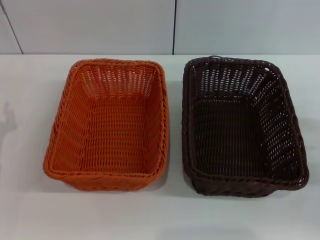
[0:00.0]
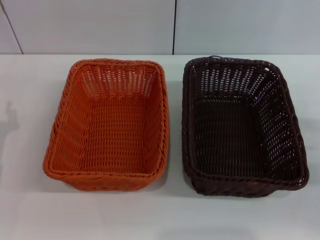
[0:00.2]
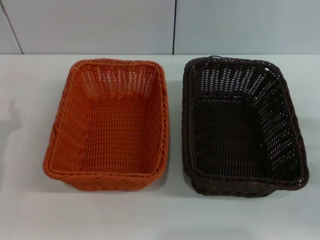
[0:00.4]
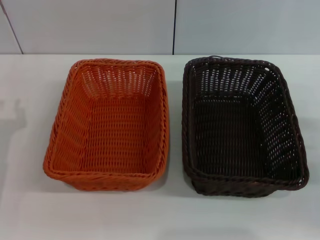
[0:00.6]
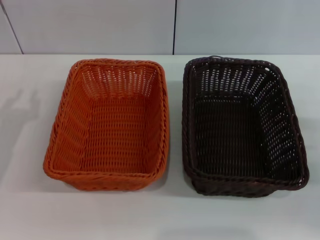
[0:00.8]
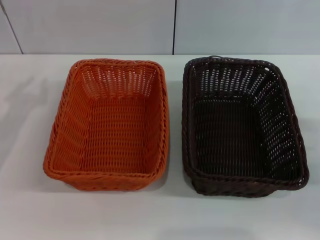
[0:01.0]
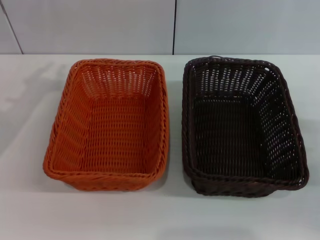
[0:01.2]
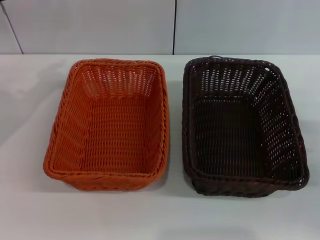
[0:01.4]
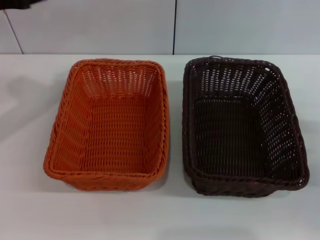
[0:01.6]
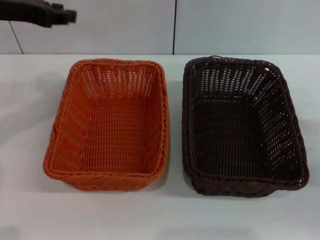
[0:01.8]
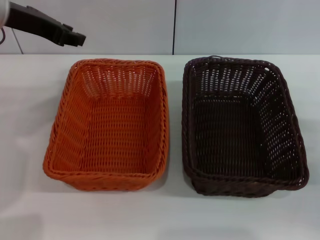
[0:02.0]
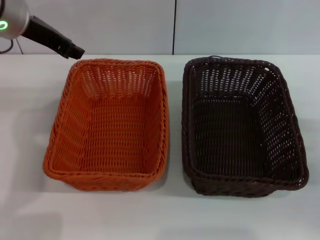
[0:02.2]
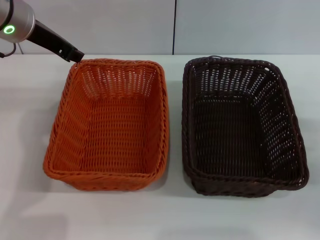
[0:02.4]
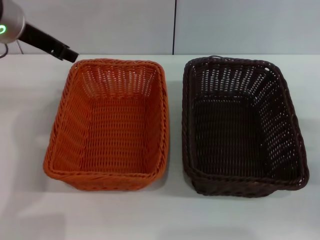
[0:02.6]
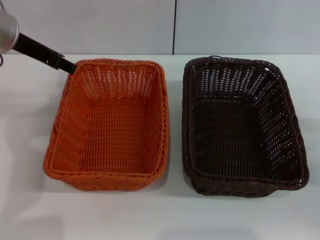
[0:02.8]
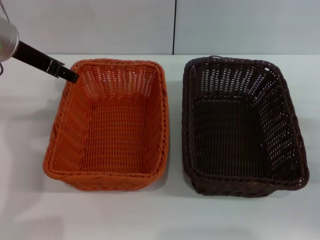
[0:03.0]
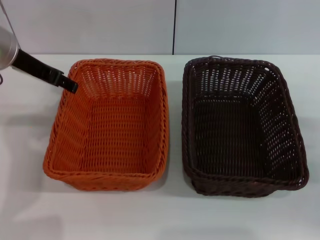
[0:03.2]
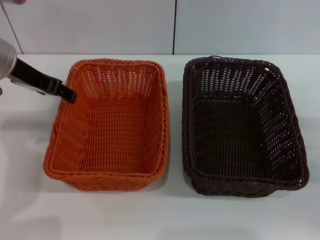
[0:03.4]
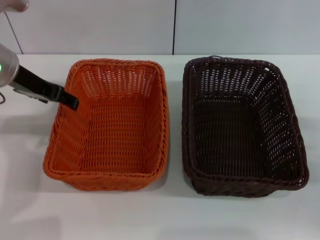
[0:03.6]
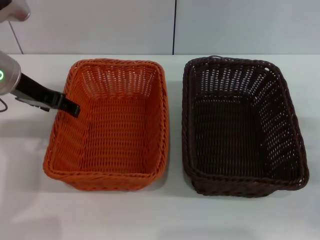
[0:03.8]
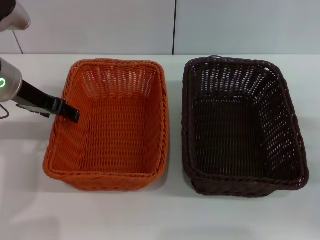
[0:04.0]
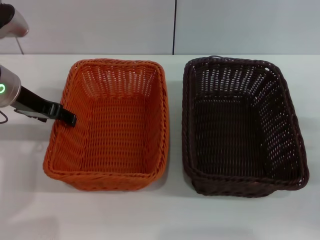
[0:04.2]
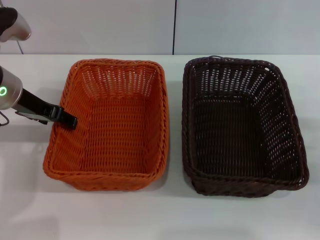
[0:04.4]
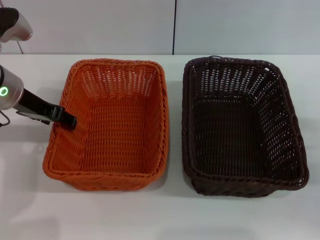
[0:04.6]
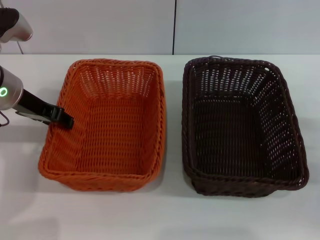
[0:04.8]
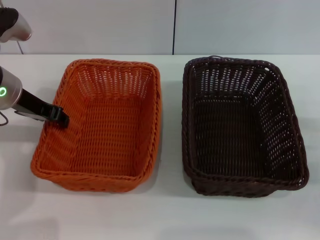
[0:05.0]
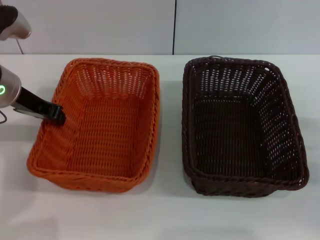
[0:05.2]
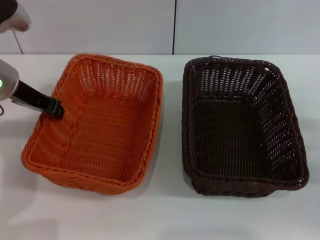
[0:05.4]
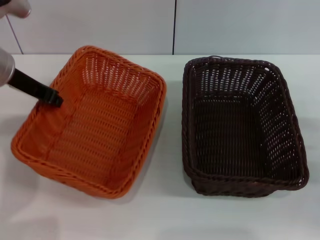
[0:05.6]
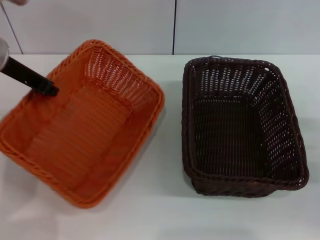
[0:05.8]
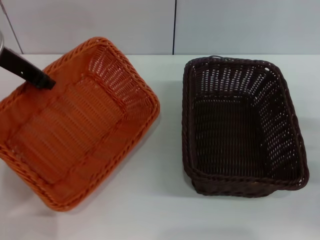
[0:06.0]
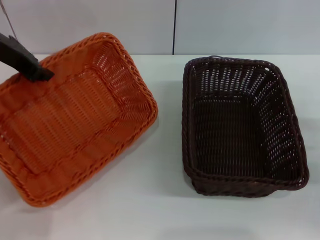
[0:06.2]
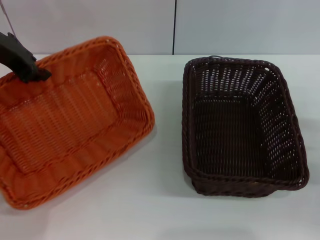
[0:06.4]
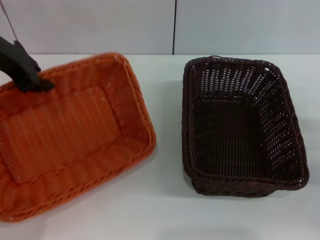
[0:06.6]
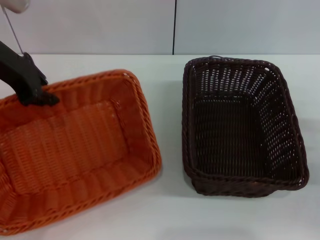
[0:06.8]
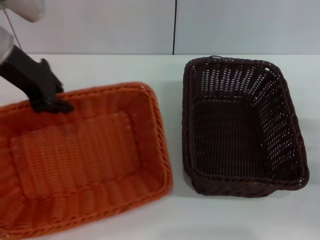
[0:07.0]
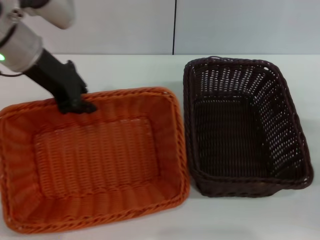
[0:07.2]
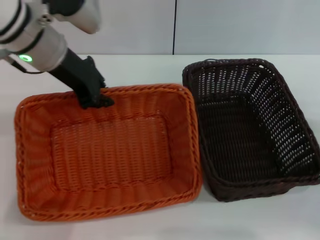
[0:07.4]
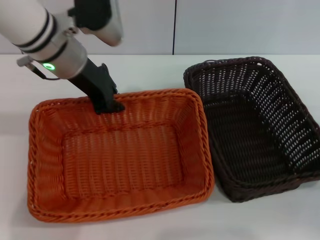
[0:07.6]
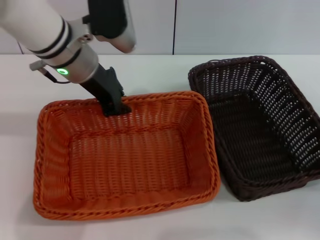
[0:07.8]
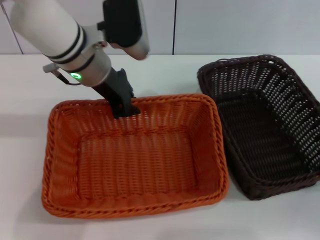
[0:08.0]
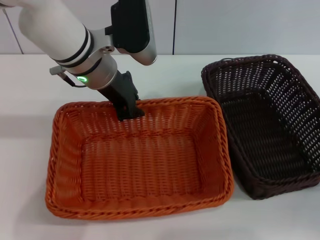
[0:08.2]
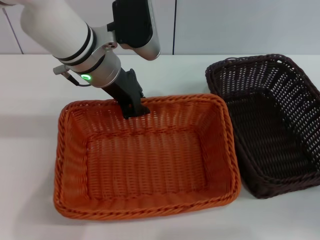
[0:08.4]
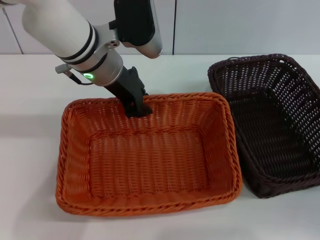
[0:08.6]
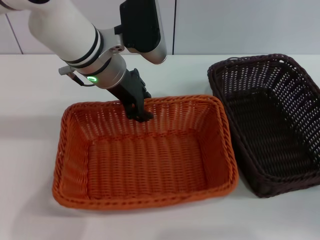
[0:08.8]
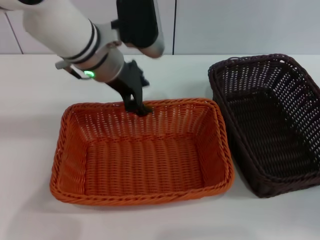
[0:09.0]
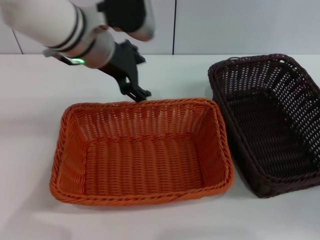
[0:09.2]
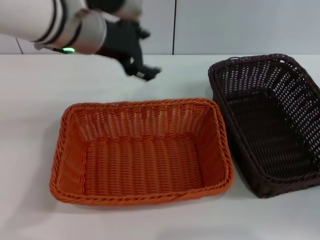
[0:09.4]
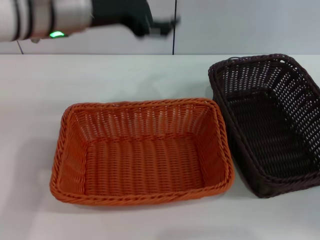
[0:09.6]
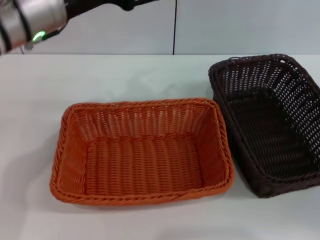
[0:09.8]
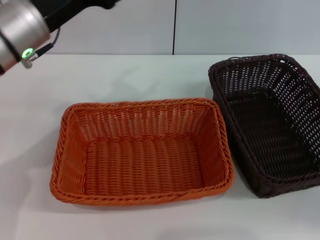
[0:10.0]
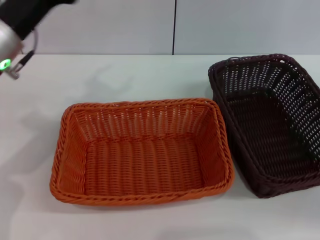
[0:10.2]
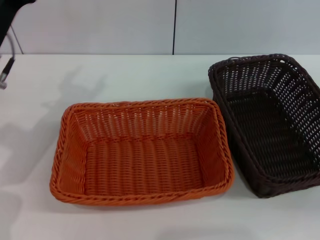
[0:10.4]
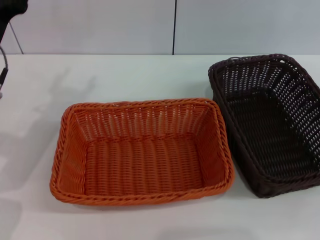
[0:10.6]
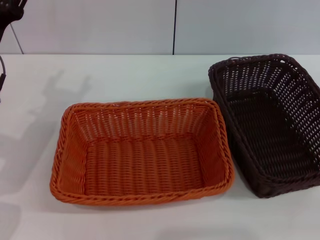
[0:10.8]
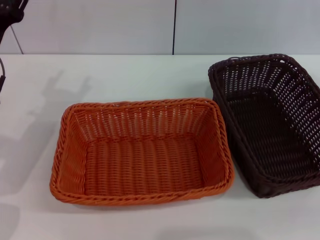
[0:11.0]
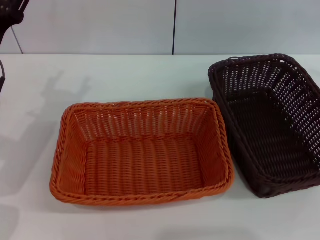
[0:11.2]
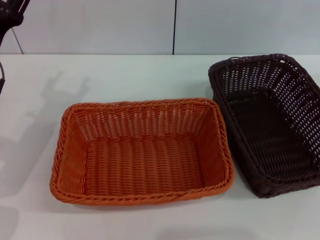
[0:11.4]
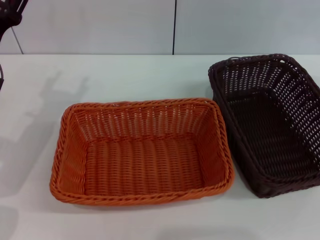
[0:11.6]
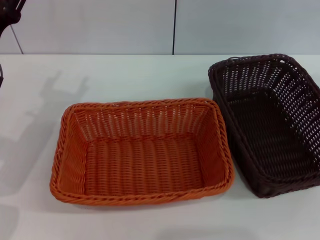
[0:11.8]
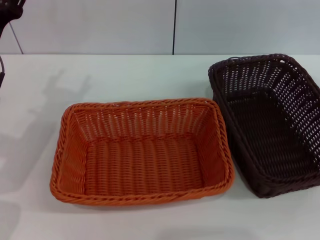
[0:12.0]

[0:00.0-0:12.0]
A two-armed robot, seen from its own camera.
Step, 0:00.0 to 0:06.2: Pick up the light basket with the left gripper.
Step, 0:06.6 to 0:08.8: Place the light basket in the center of view with the left gripper.
0:00.0 to 0:01.6: The left gripper goes some 20 cm upward and forward.
0:01.6 to 0:03.0: The left gripper is displaced to the right by approximately 5 cm.
0:03.0 to 0:04.4: The left gripper travels downward by approximately 5 cm.
0:04.4 to 0:06.0: The left gripper travels upward by roughly 10 cm, and closes.
0:06.0 to 0:07.6: The left gripper shifts about 10 cm to the right.
0:07.6 to 0:09.0: The left gripper is displaced to the right by about 5 cm.
0:09.0 to 0:10.4: The right gripper ends up approximately 5 cm from where it was; the left gripper travels to the left by about 15 cm, and opens its fingers.

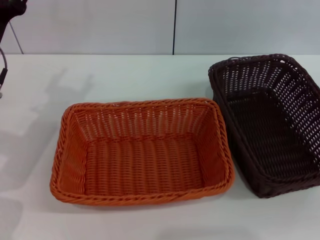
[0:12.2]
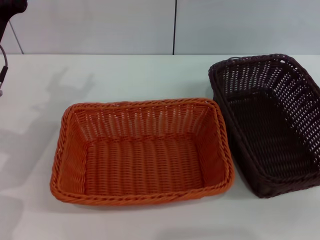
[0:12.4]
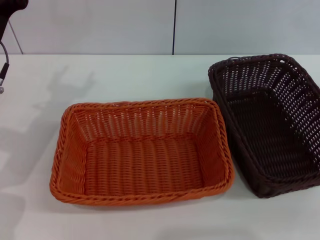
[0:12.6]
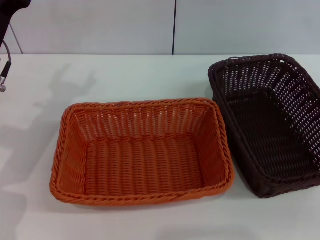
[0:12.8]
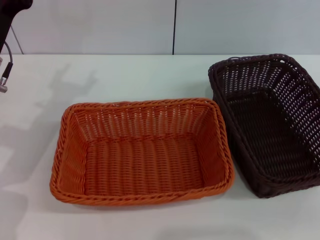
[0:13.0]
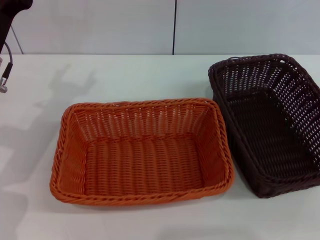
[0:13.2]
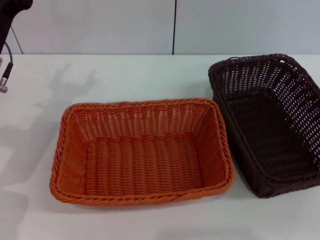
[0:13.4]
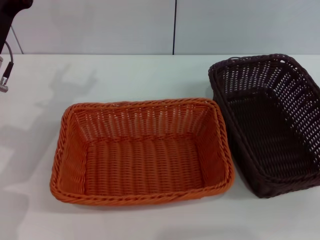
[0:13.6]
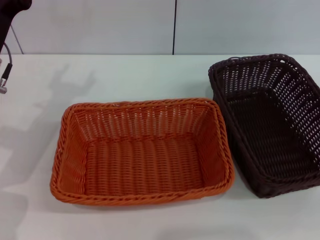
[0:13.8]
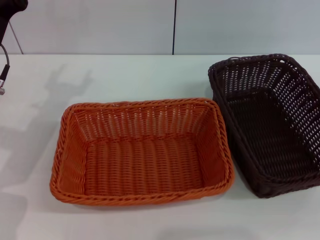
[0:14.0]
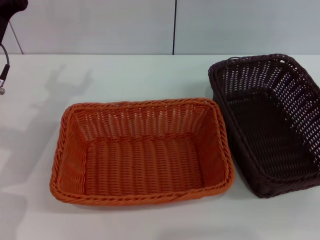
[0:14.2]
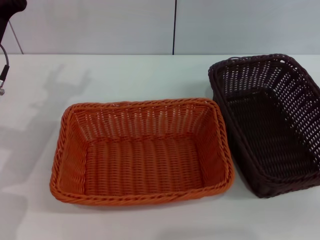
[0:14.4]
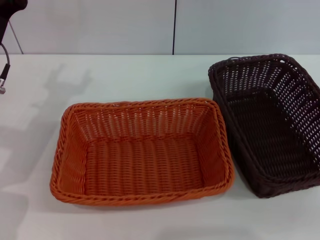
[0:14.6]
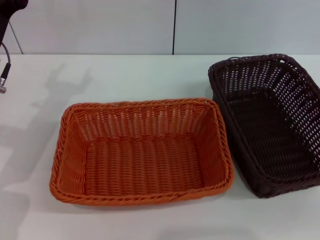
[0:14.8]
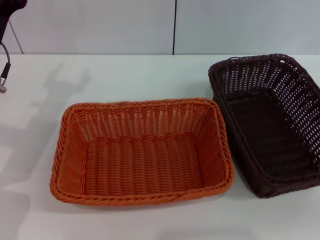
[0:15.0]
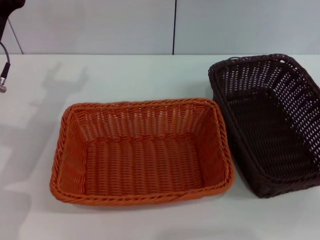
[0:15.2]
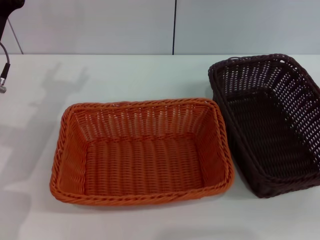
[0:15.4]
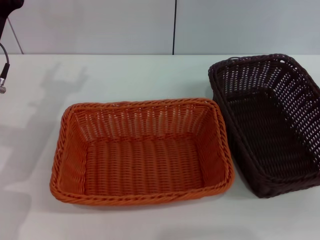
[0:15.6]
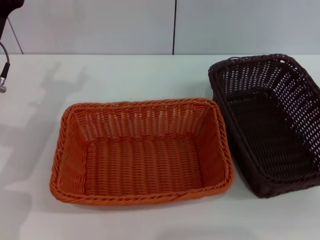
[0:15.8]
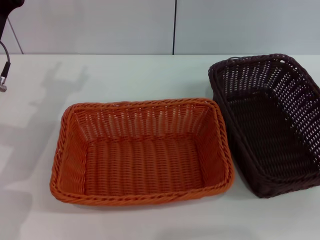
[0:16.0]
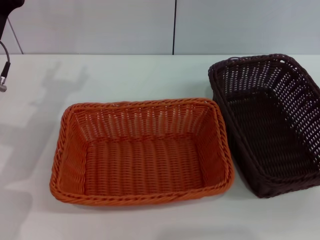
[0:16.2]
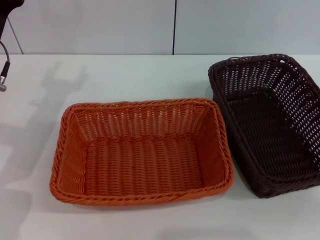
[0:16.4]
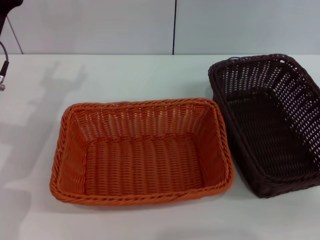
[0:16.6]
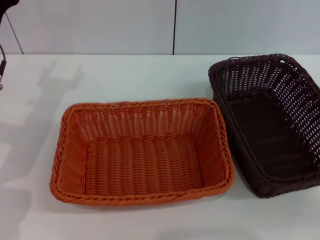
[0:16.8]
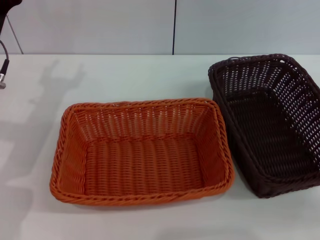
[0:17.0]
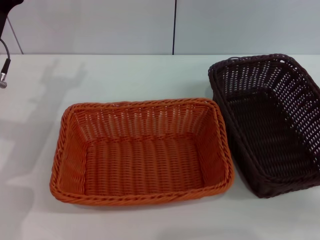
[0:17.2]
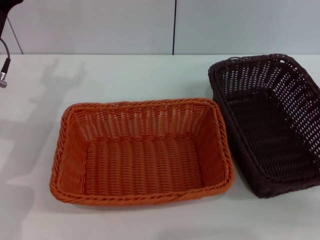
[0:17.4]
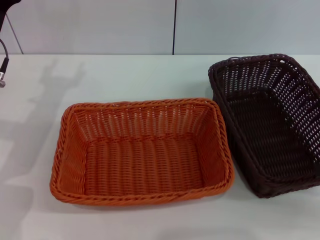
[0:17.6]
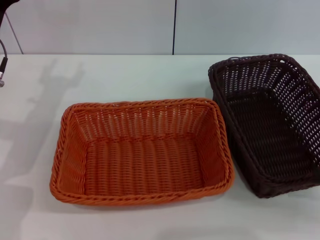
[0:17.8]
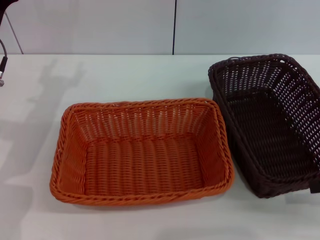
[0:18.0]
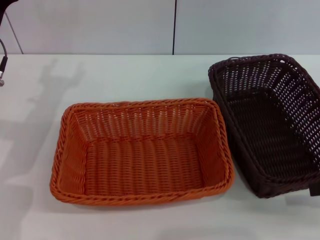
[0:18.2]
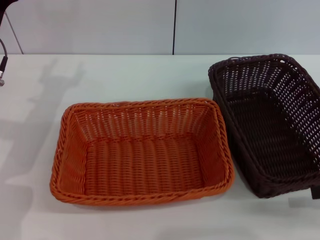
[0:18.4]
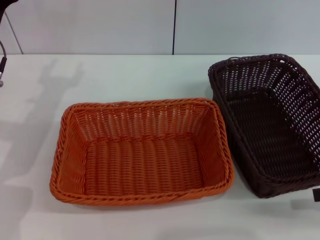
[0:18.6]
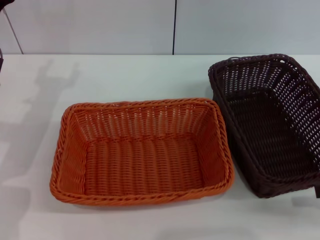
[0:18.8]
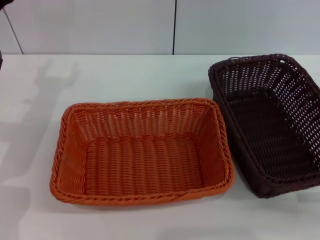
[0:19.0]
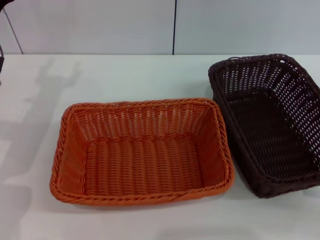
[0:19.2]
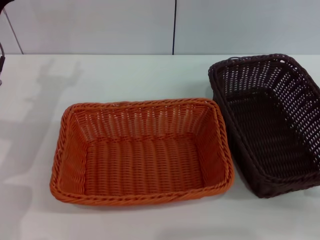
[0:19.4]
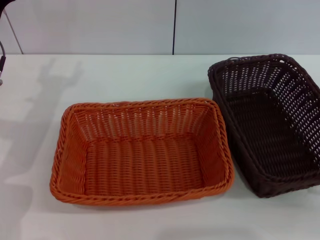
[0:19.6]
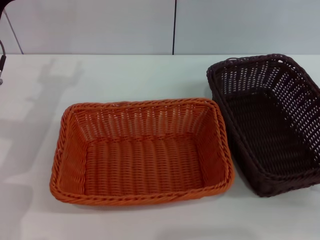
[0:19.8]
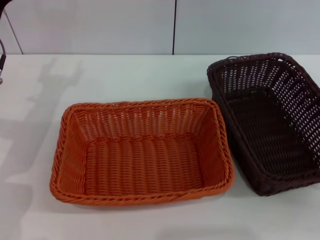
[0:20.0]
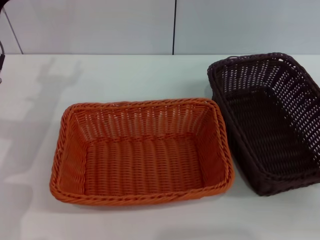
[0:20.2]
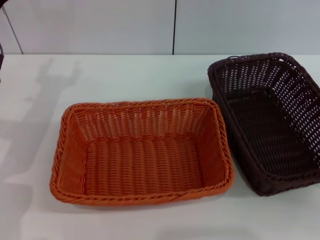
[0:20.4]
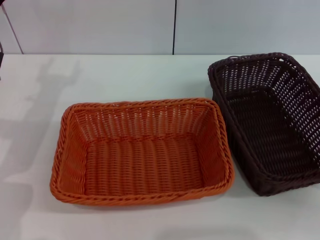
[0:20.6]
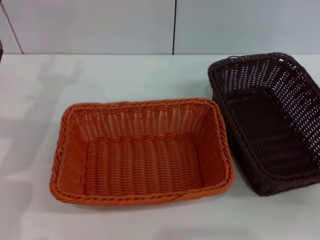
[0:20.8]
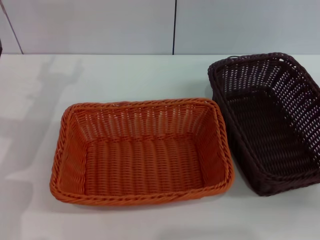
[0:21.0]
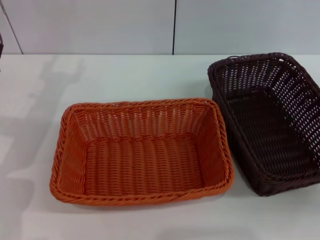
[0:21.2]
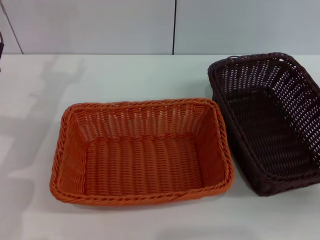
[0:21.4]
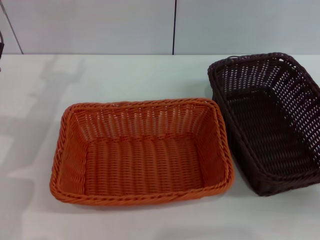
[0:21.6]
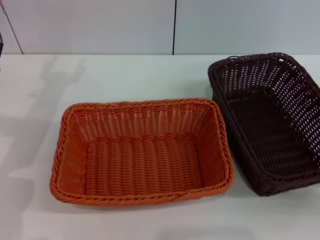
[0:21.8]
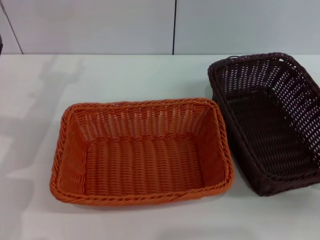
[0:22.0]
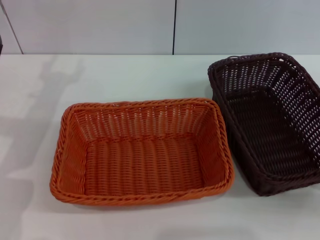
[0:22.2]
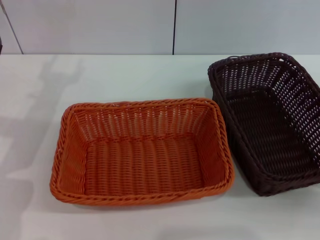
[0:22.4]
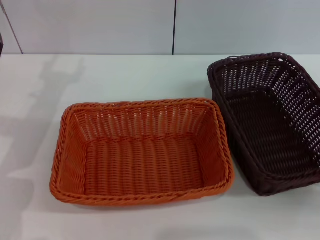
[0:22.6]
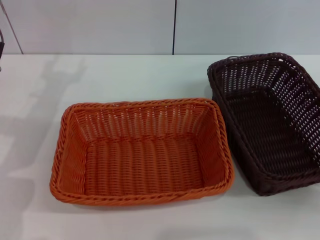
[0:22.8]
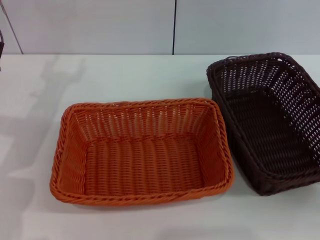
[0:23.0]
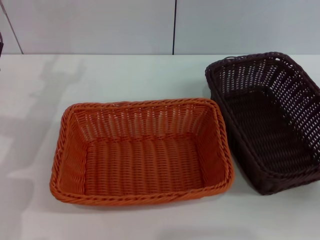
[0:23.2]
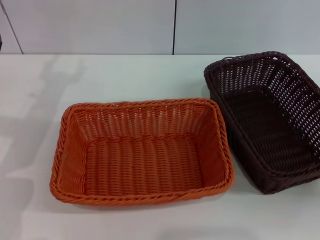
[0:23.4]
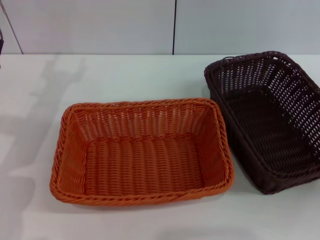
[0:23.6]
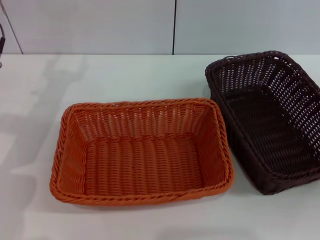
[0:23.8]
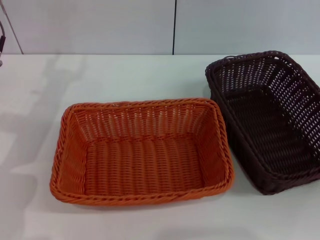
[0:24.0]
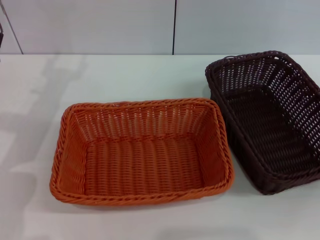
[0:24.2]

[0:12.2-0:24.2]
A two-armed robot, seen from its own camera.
0:16.6 to 0:18.2: The right gripper is displaced downward by about 5 cm.
0:18.2 to 0:19.8: The grippers move only a little.
0:19.8 to 0:21.2: There are only small adjustments of the grippers.
0:22.6 to 0:24.2: The grippers make only small movements.
